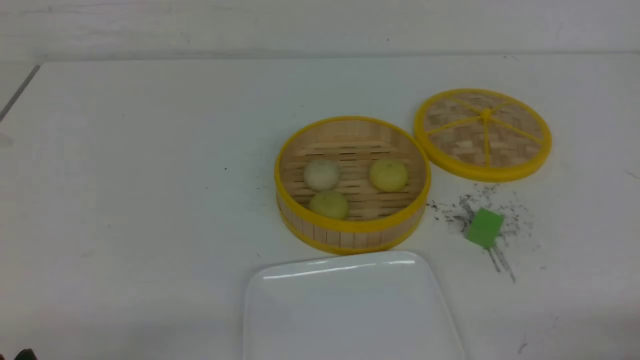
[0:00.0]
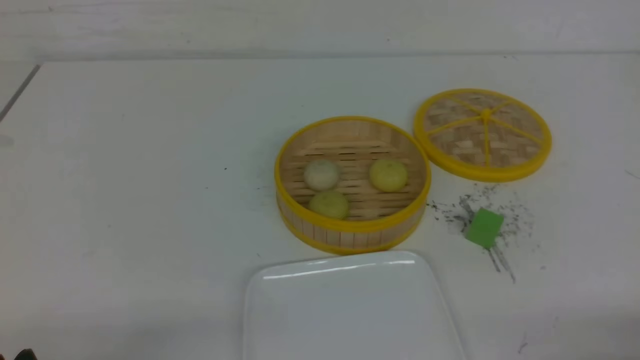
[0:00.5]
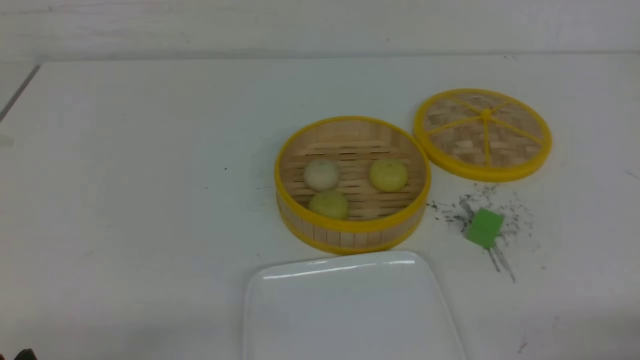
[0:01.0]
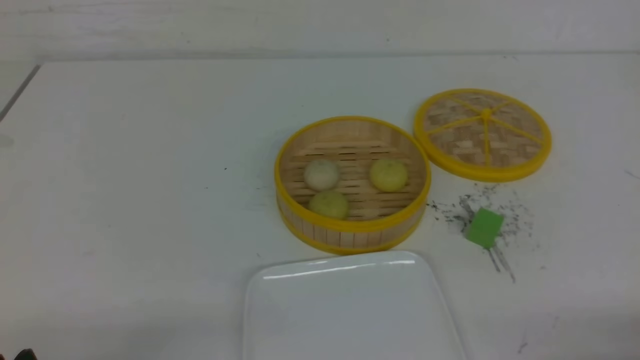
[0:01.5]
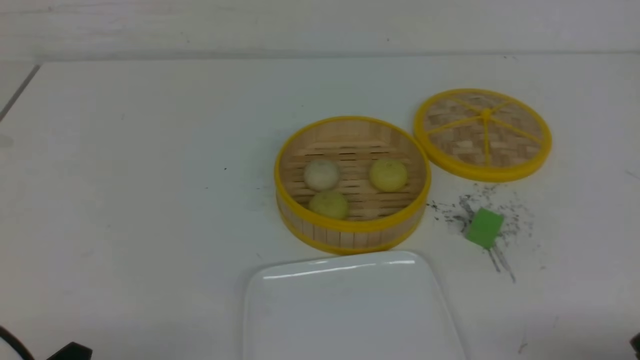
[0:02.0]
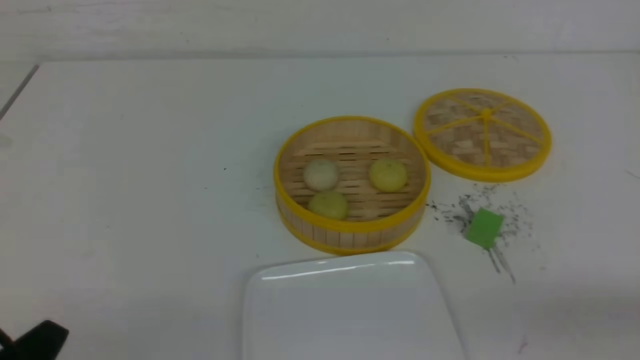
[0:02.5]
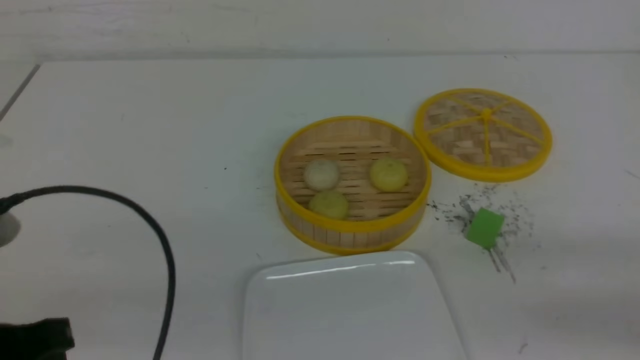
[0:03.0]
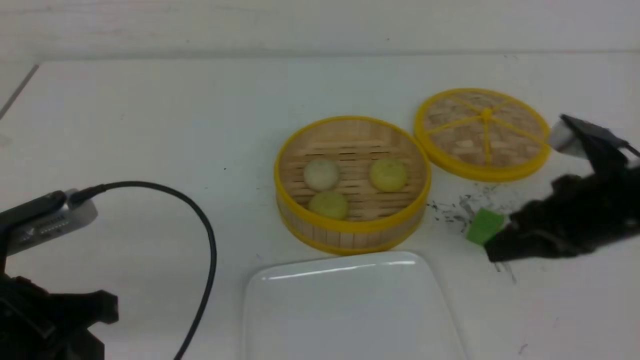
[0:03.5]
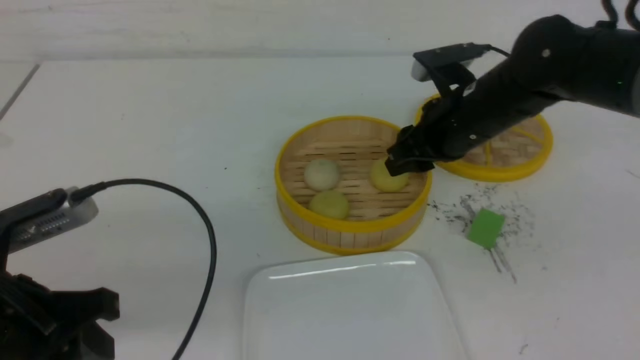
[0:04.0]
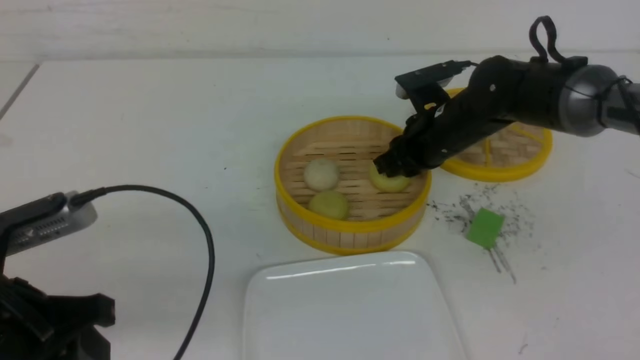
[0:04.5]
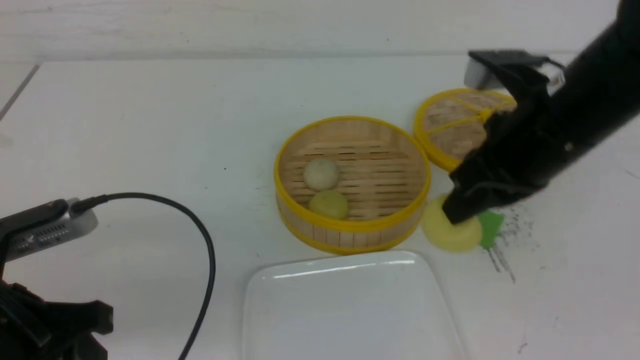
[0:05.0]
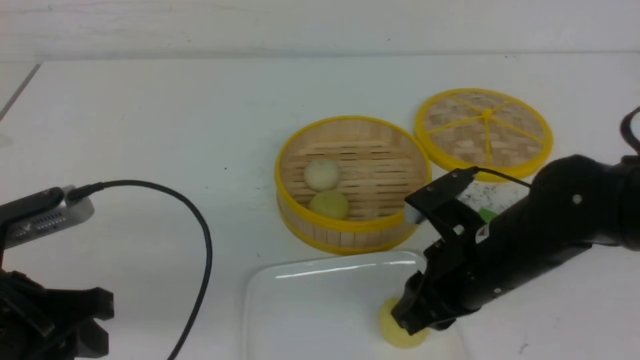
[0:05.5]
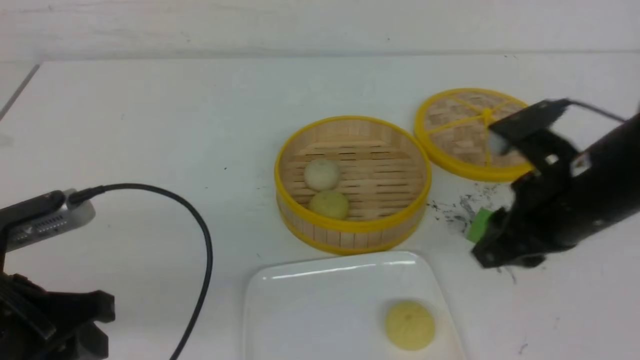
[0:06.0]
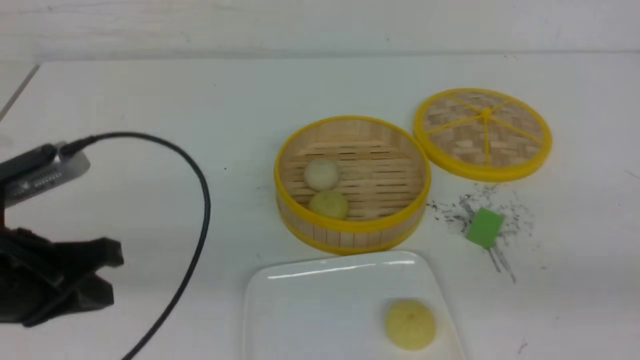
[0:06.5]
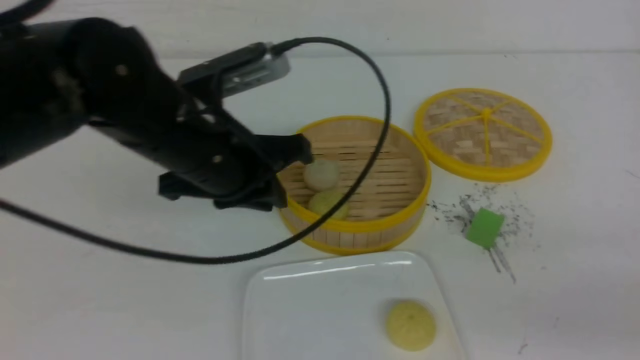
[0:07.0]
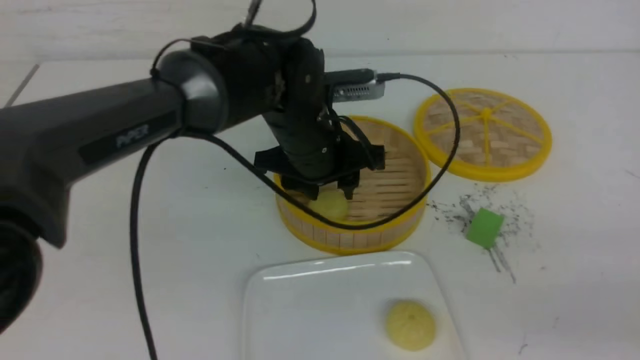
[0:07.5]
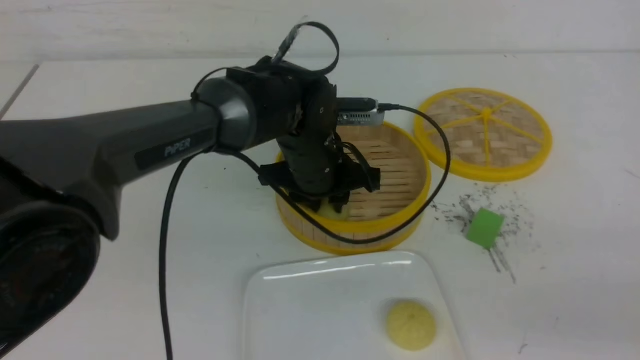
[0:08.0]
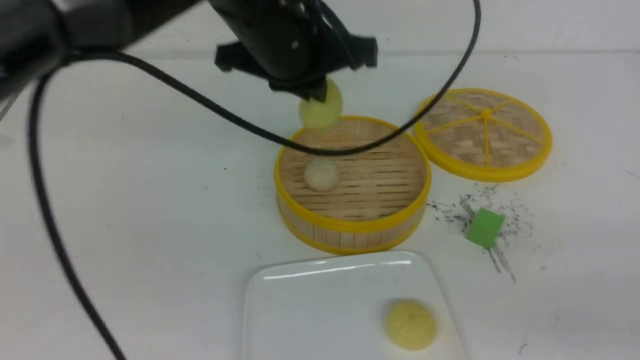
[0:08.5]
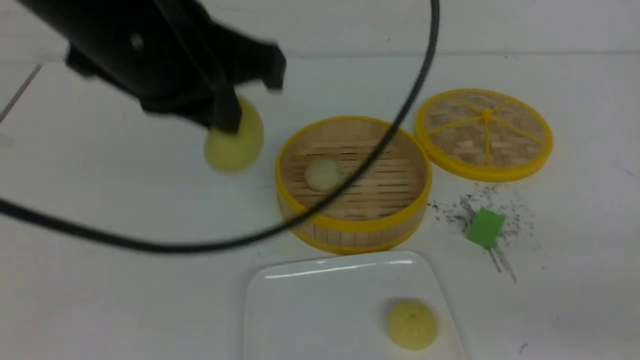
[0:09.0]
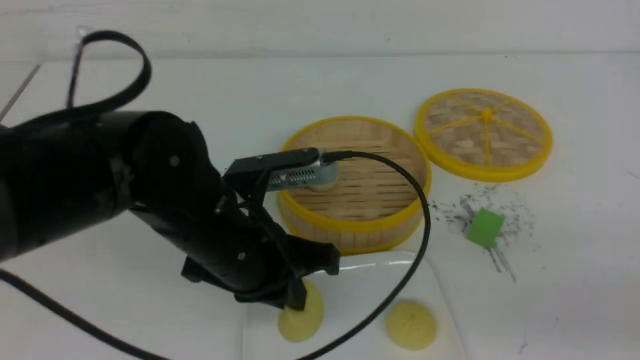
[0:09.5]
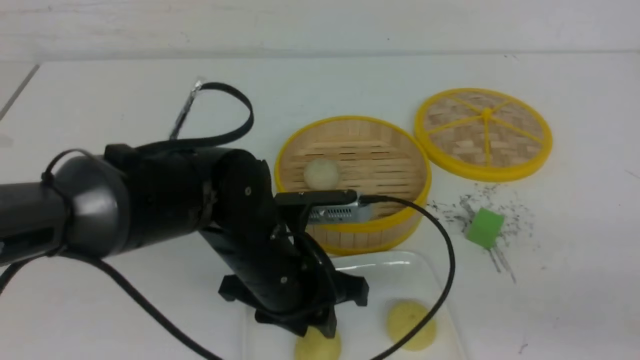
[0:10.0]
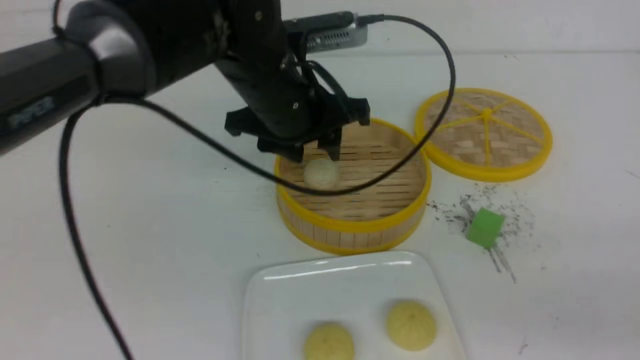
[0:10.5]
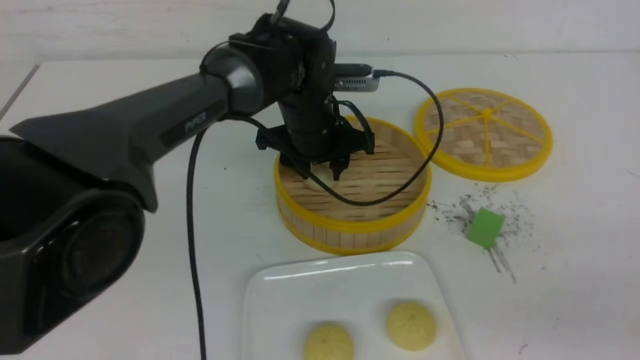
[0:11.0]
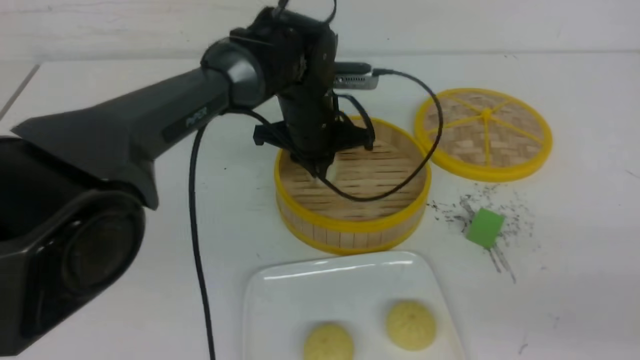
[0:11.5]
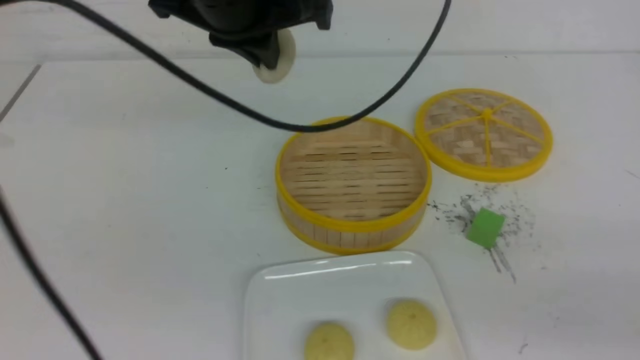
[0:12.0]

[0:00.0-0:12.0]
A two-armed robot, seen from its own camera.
Step, 0:00.0 to 0:04.5: use the right arm to grab the steamed stuffed bun that is closest to it.
Step, 0:05.0 to 0:05.5: use the right arm to put the steamed stuffed bun into the plate.
Step, 0:06.0 to 0:08.0: use the left arm to grab the steamed stuffed bun that is closest to it.
Step, 0:08.5 to 0:10.0: use the left arm to put the steamed stuffed bun into the plate.
Step, 0:10.5 to 0:11.0: use the left arm to grab the steamed stuffed bun that is closest to it.
0:02.0 to 0:04.0: The right gripper is displaced forward and to the left by approximately 35 cm, and closes, then opens again. Meanwhile the left gripper moves forward and upward, about 15 cm, and closes, then reopens.
0:04.0 to 0:06.0: The right gripper is displaced backward by roughly 15 cm, and closes, then reopens.
0:06.0 to 0:08.0: The left gripper is displaced to the right and forward by about 30 cm, and closes, then reopens, while the right gripper moves backward and to the right, approximately 20 cm, and closes its fingers.
0:08.0 to 0:10.0: The left gripper moves backward, about 15 cm, travels upward and back again, some 15 cm each way, and closes, then reopens.
0:10.0 to 0:12.0: The left gripper swings up and down, about 15 cm each way, with 2 reversals, and closes.

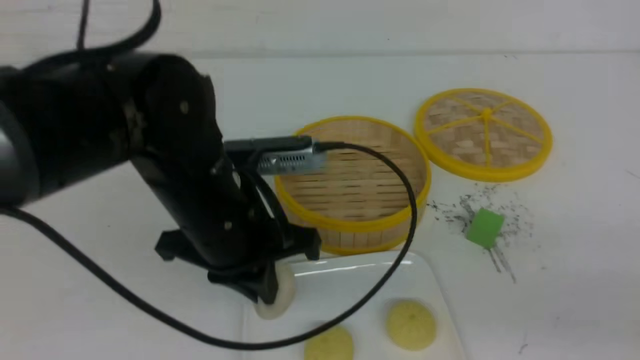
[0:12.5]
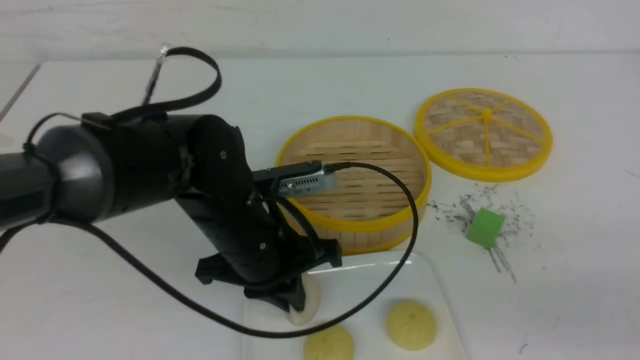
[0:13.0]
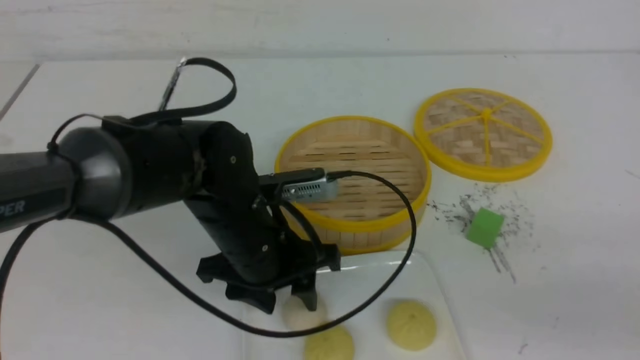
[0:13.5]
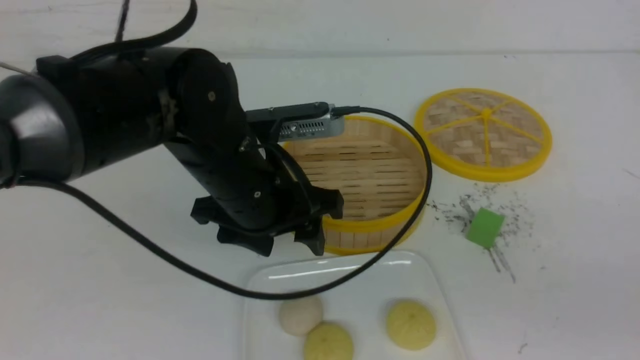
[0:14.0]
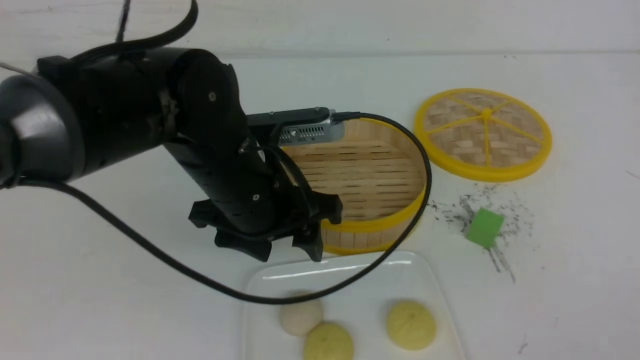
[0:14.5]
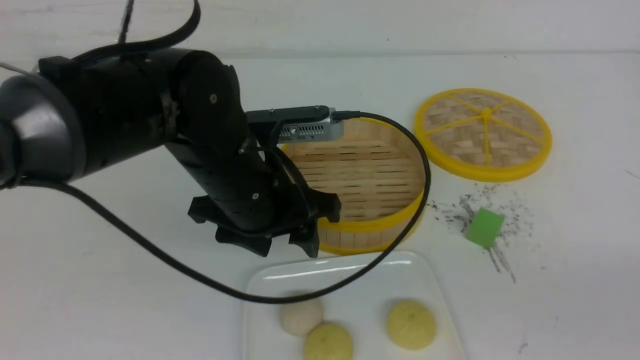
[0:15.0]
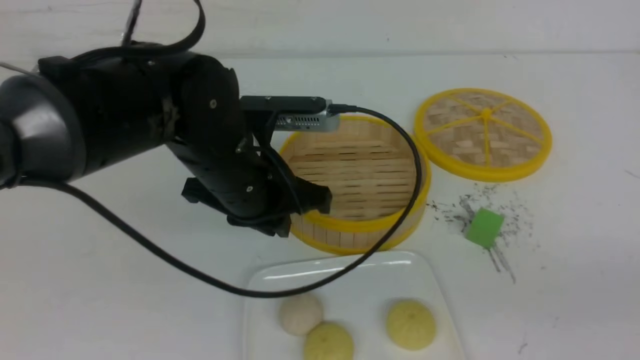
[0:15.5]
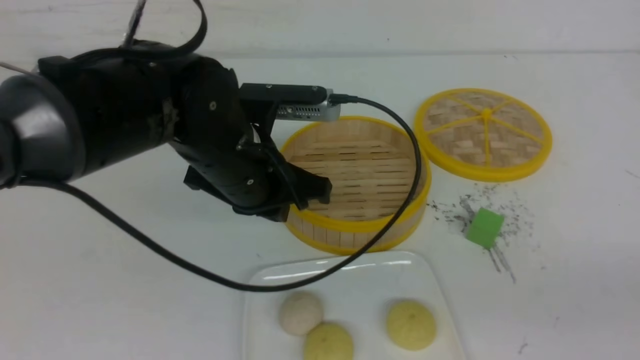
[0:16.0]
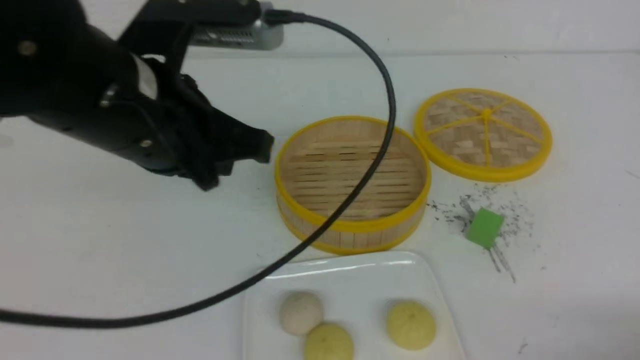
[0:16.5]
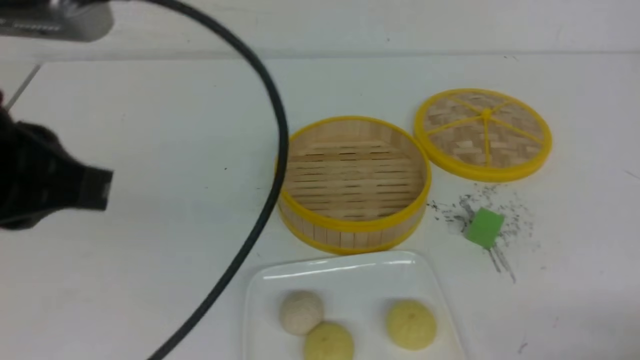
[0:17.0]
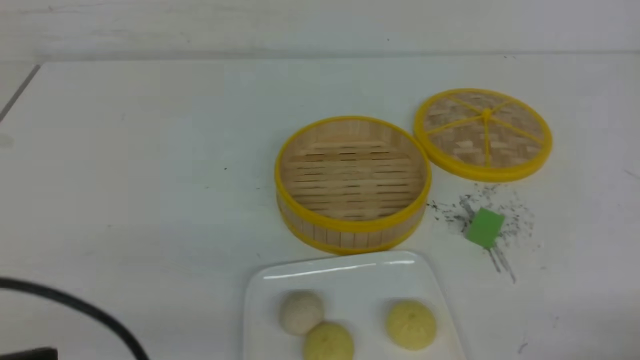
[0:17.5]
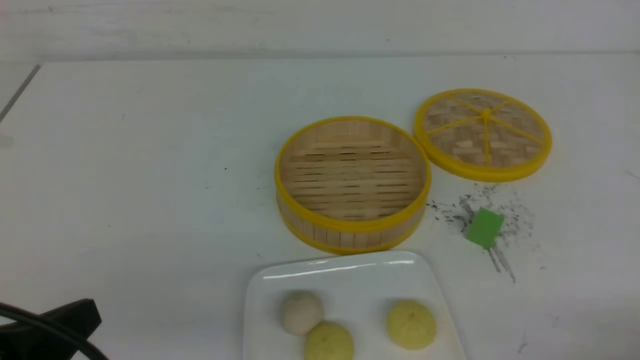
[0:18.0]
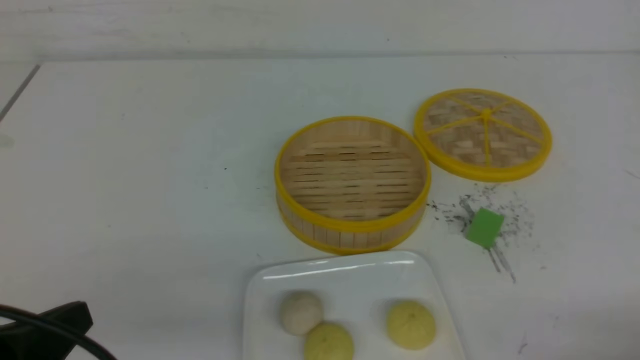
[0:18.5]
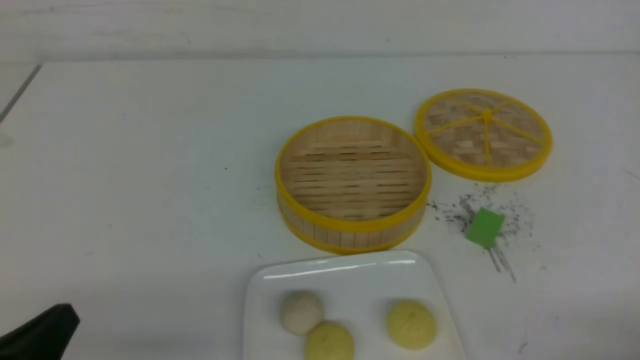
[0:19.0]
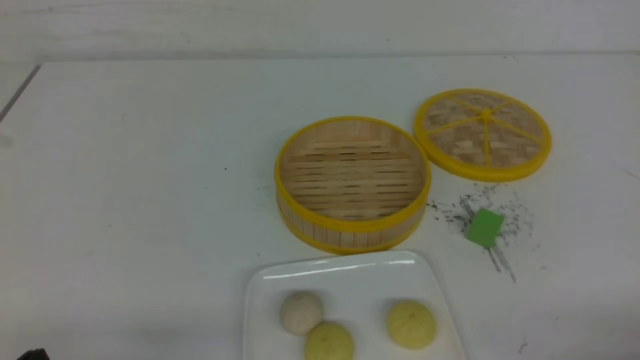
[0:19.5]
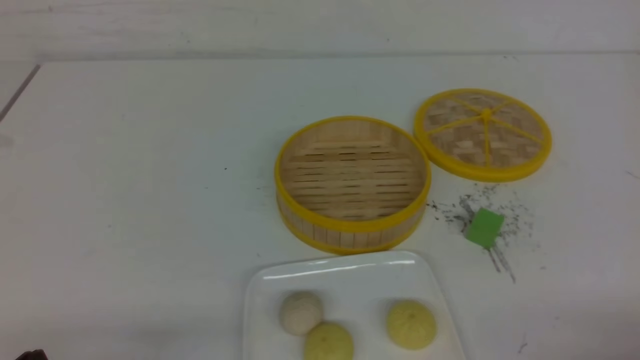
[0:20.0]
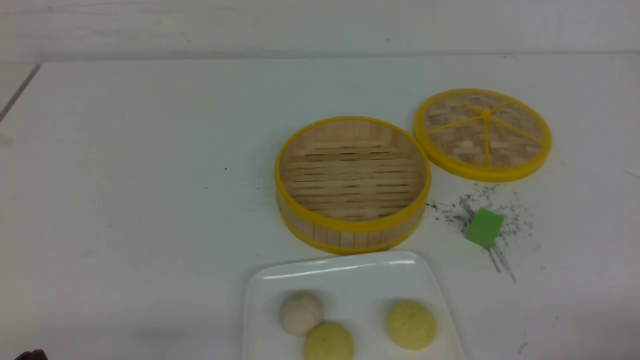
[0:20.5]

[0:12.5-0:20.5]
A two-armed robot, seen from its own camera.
0:12.5 to 0:14.5: The left gripper opens, while the right gripper travels backward and upward by roughly 15 cm.
0:14.5 to 0:16.5: The right gripper travels downward and forward by about 20 cm, and closes up. Meanwhile the left gripper heads upward and to the left, covering about 10 cm, and closes its fingers.
0:16.5 to 0:18.5: The left gripper is displaced backward, to the left and downward by some 20 cm.
0:18.5 to 0:20.5: The left gripper heads downward, covering approximately 10 cm.
